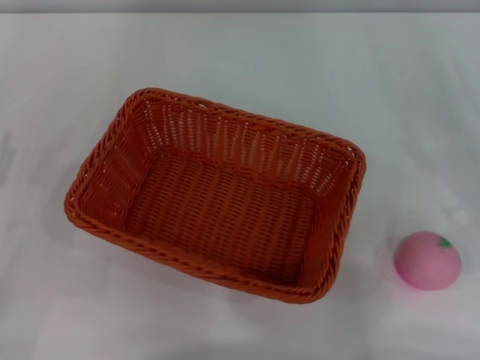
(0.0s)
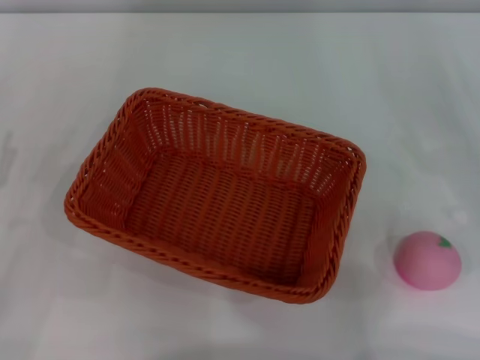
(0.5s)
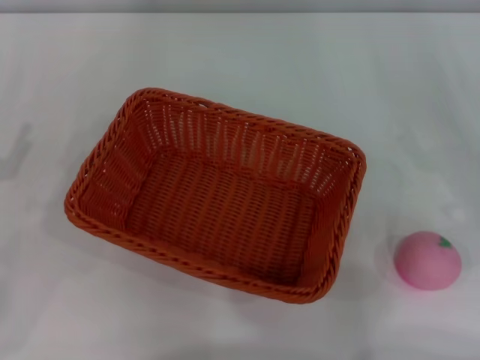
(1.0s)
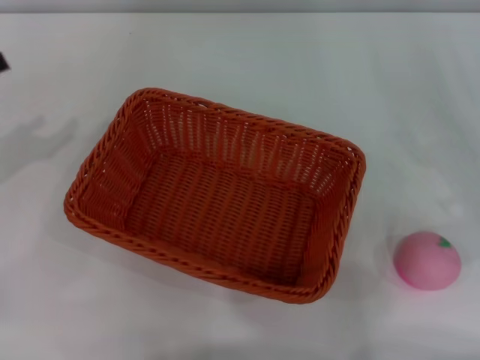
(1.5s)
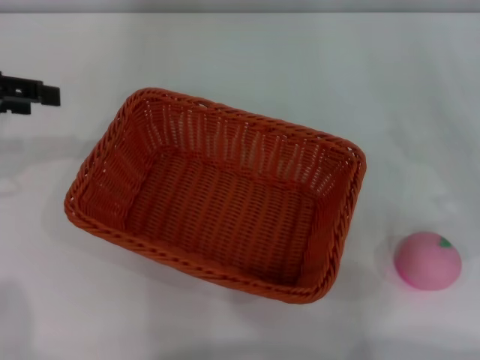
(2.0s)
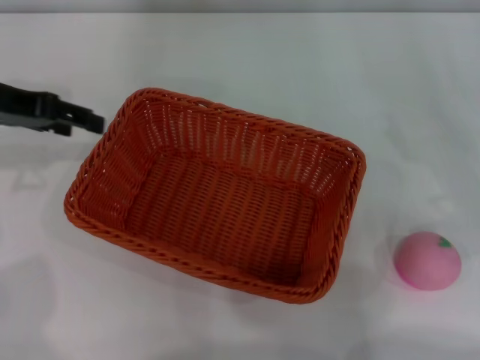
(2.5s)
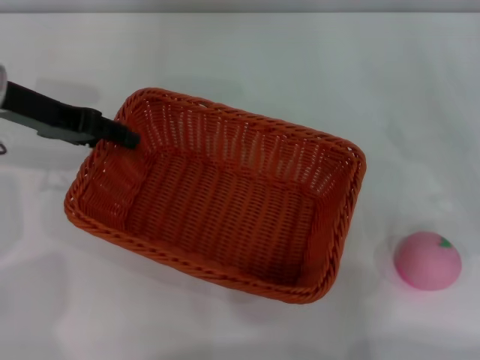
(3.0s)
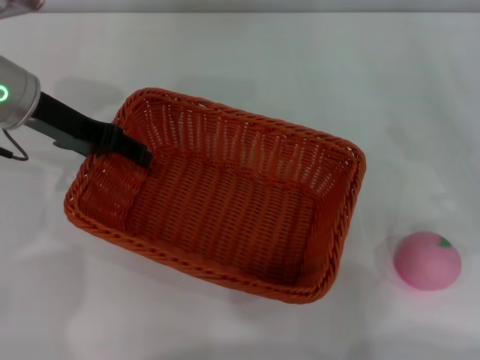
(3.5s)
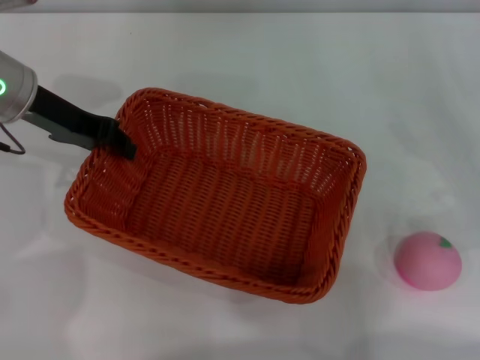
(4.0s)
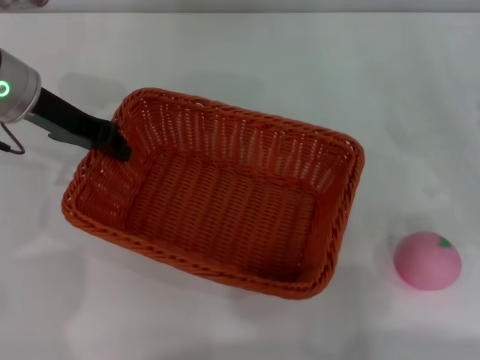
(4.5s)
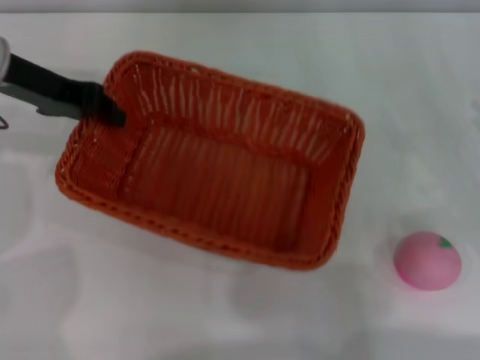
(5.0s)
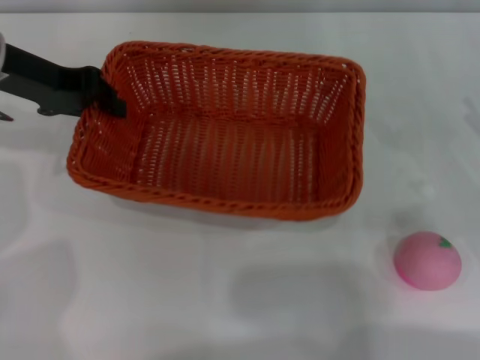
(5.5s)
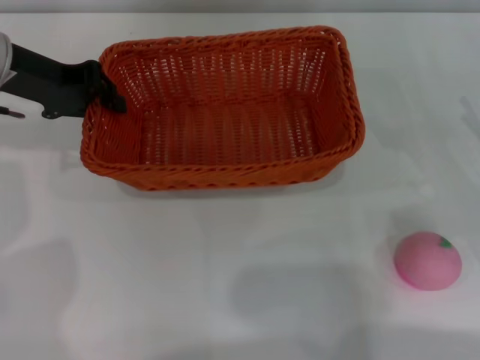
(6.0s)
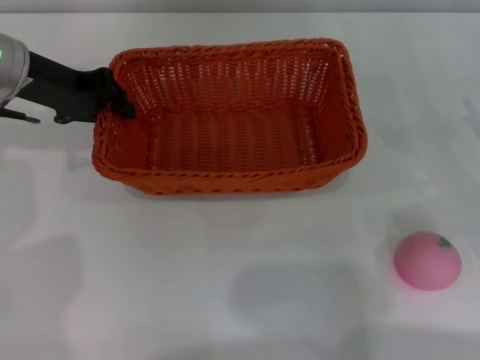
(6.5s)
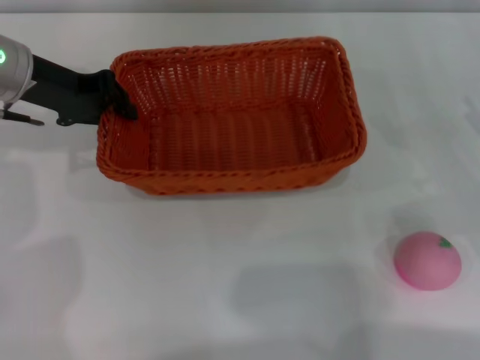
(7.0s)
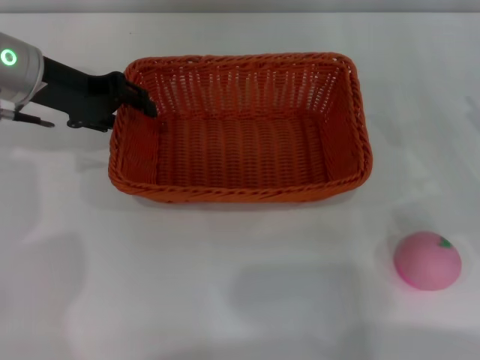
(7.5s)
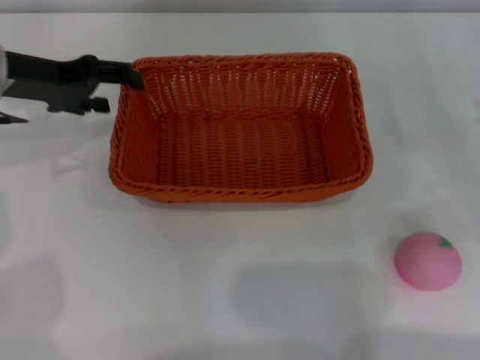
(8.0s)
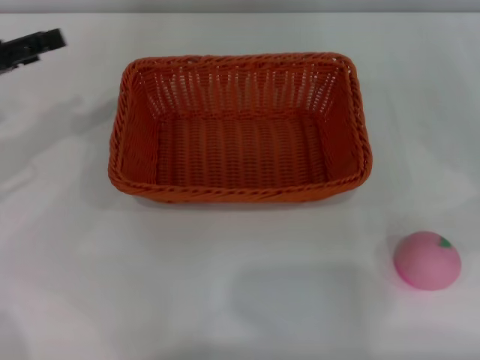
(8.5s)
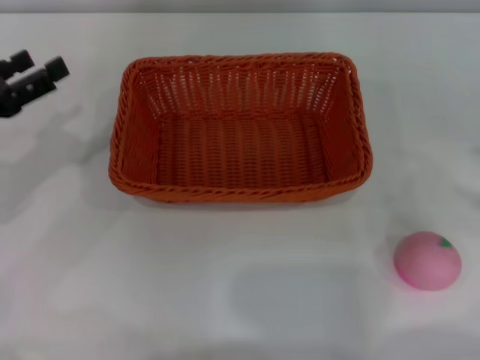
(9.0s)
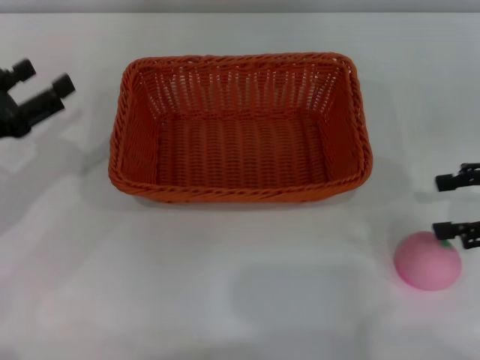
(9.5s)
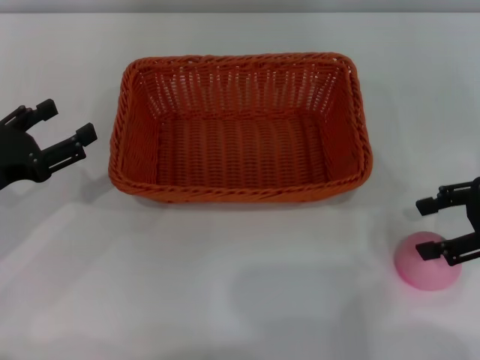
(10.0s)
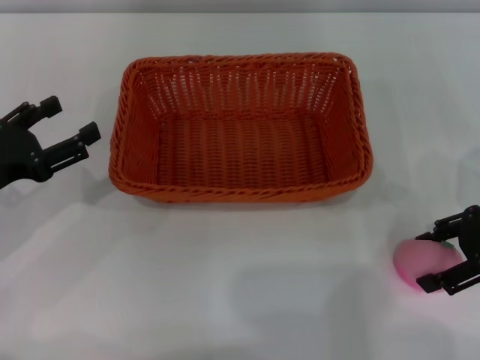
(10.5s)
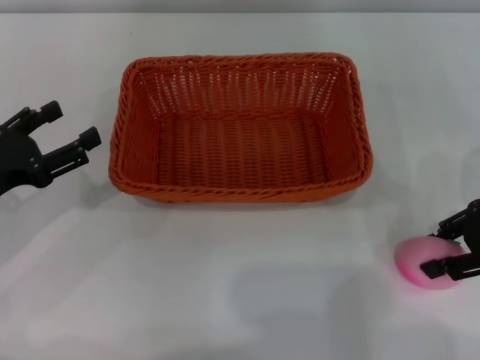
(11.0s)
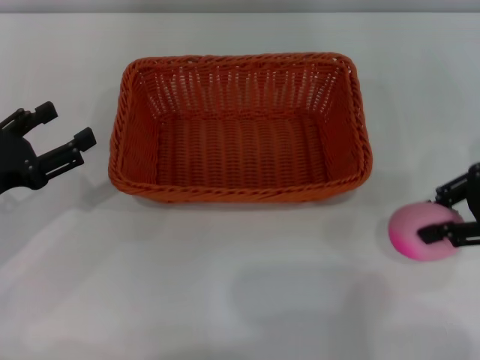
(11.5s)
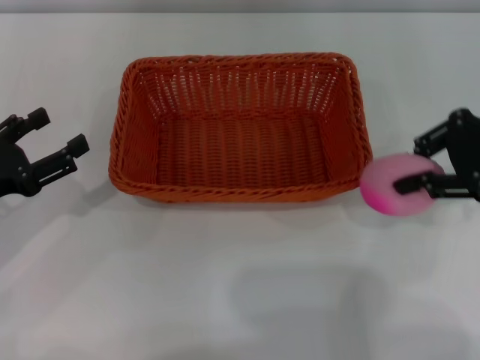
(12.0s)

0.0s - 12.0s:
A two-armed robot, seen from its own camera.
Step, 0.0s - 5.0s: Pick up the light basket with the left gripper.
Step, 5.5s - 8.0s: Place the light basket in the center of view with the right gripper.
Step, 8.5s - 12.0s: Pick up the peach with the left gripper.
0.0s - 2.0s: The left gripper is displaced upward and forward by some 20 cm.
2.0s - 4.0s: The left gripper goes some 10 cm to the right.
4.0s - 6.0s: The left gripper closes its fingers.
6.0s - 8.0s: The left gripper opens its fingers.
8.0s - 10.0s: The left gripper shifts roughly 15 cm backward, downward and to the left, while the right gripper travels to the right and back again, approximately 5 cm each way.
10.0s - 12.0s: The right gripper goes about 5 cm upward, and closes.

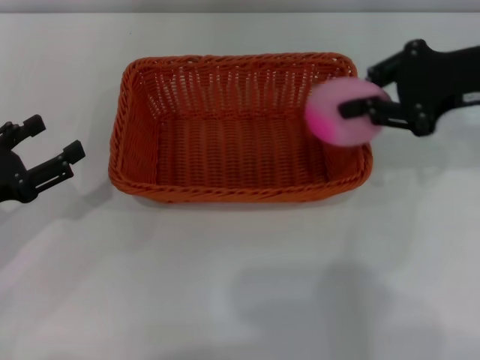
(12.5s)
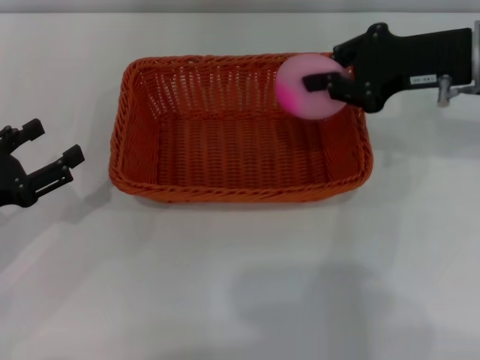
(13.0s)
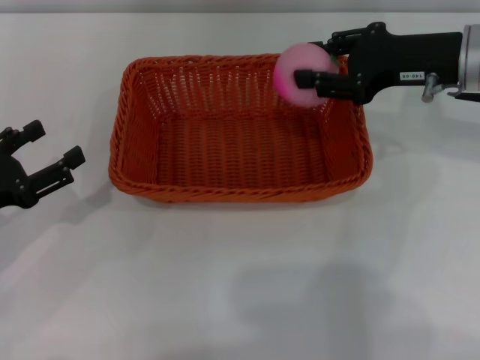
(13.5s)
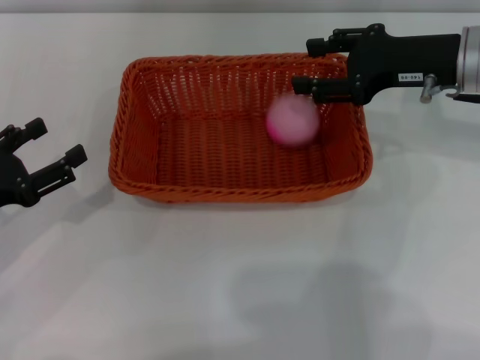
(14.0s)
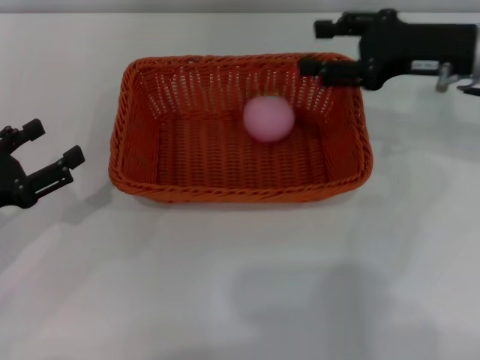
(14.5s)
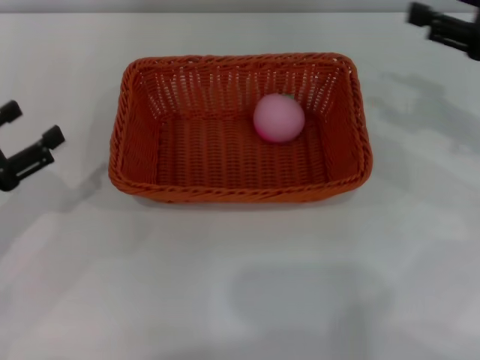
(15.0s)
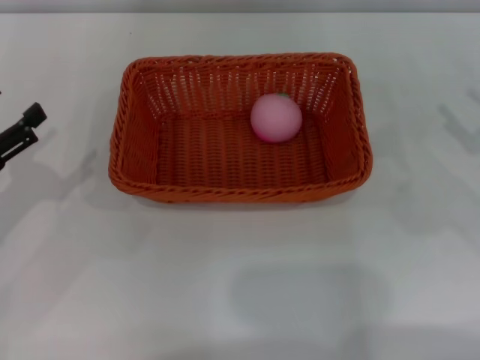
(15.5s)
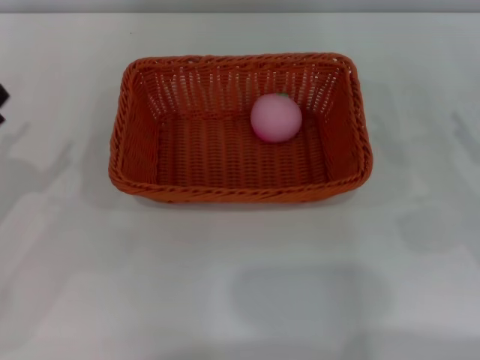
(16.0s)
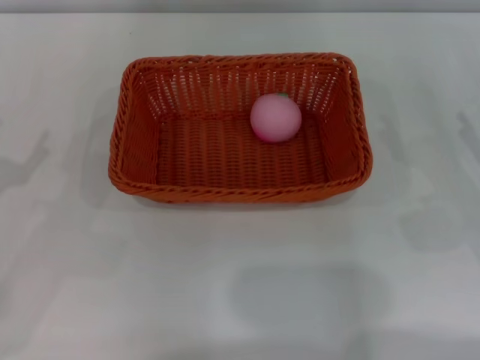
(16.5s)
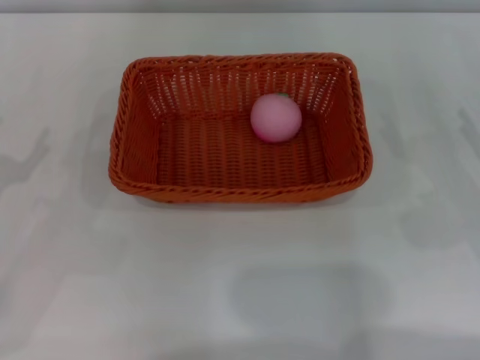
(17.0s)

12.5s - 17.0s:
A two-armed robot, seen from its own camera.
12.5s - 14.5s: The right gripper opens its fingers.
14.5s - 17.0s: The right gripper is displaced backward, downward and to the right by roughly 20 cm.
